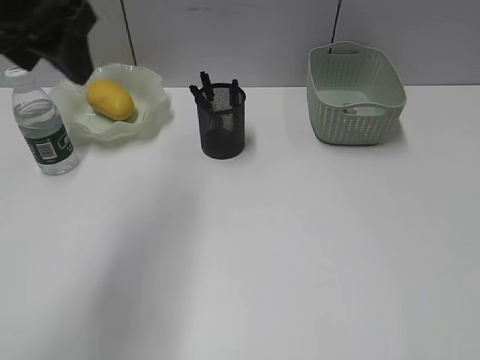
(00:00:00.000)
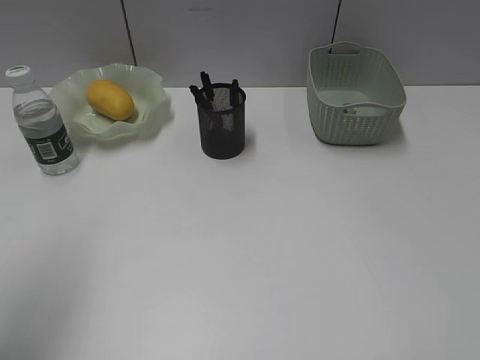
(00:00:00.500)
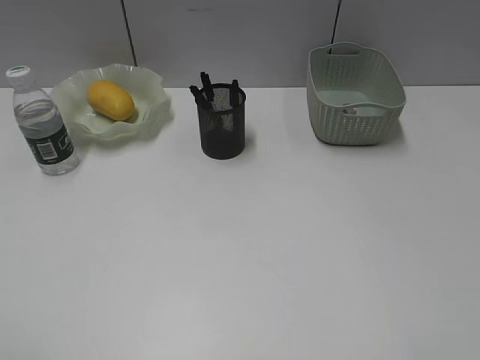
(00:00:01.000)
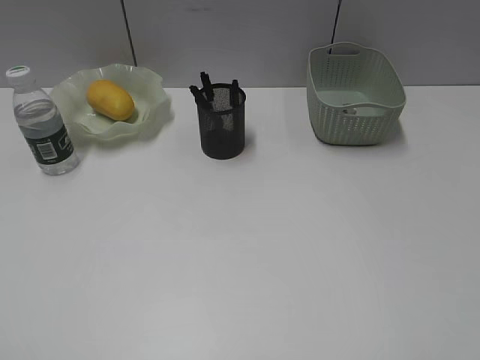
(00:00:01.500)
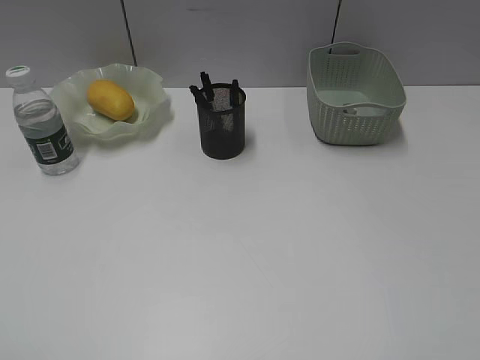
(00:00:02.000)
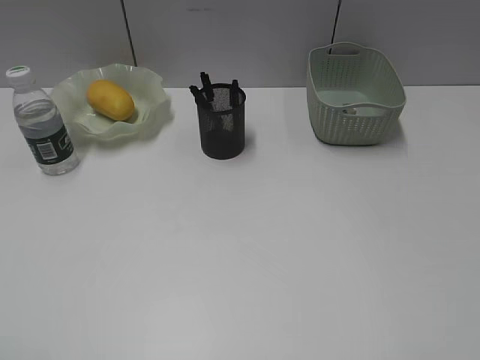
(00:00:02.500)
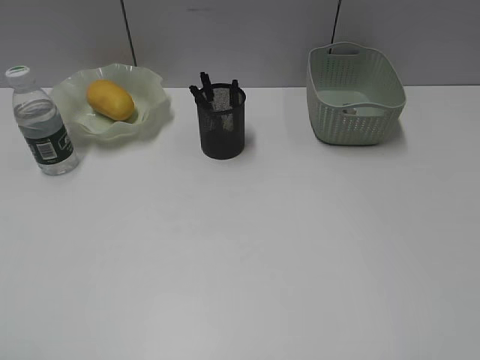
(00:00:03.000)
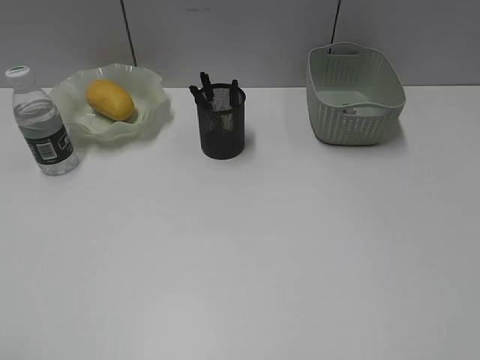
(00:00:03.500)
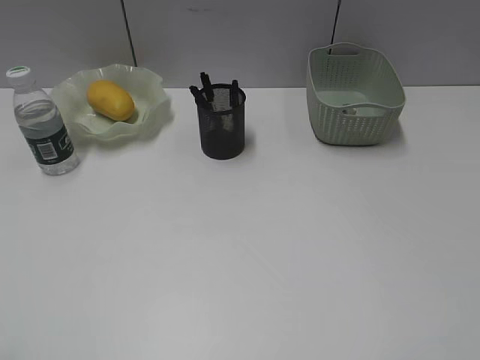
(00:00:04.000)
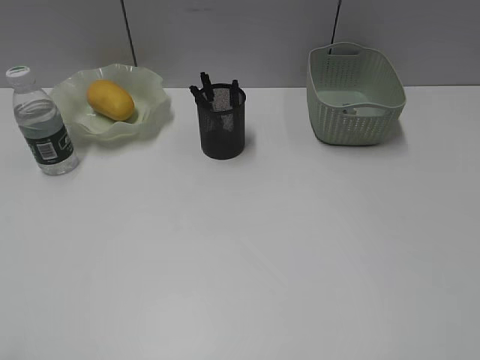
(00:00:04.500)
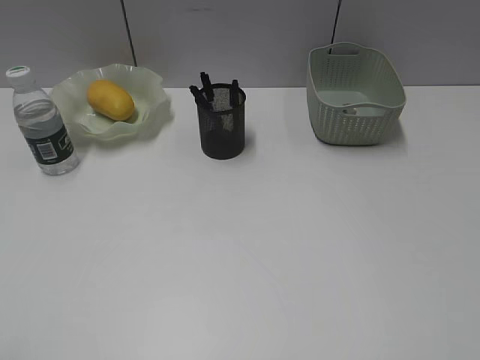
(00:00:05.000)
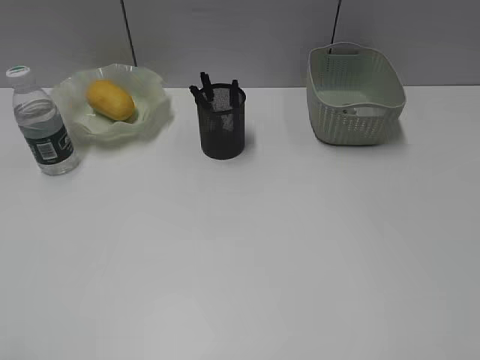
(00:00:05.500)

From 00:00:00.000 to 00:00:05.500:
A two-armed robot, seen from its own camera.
From 00:00:00.000 to 00:00:02.000: The left gripper shifts some 30 cm backward and to the left.
